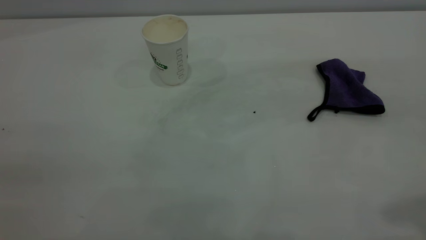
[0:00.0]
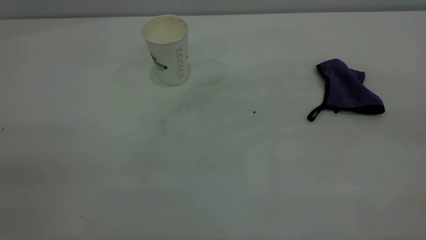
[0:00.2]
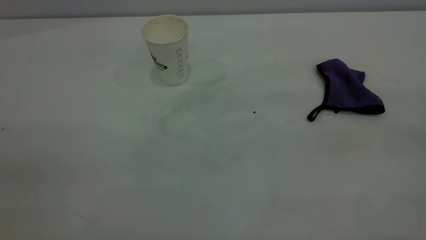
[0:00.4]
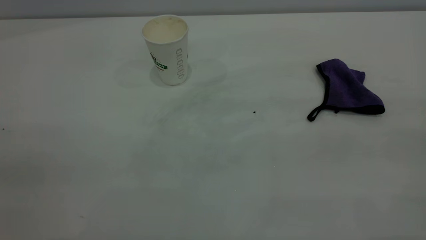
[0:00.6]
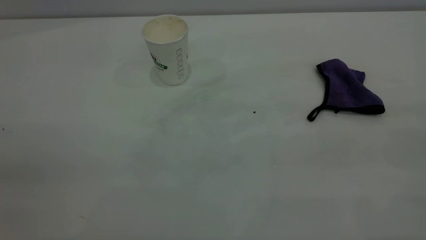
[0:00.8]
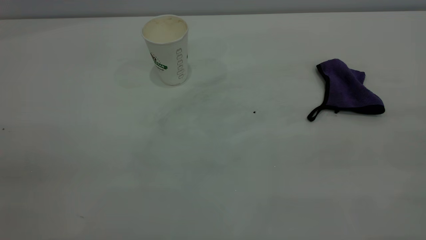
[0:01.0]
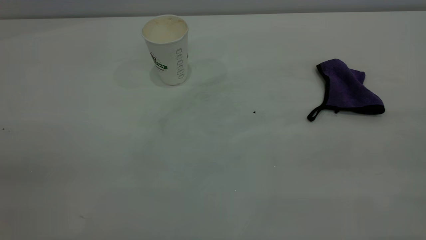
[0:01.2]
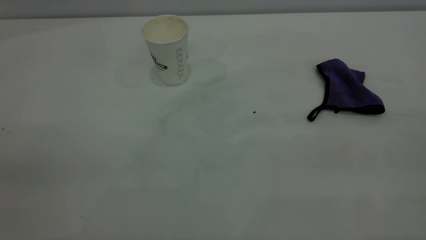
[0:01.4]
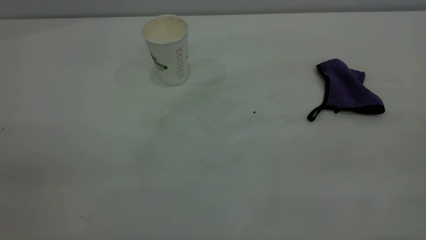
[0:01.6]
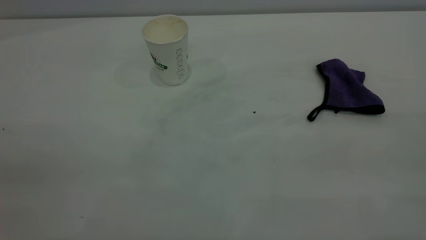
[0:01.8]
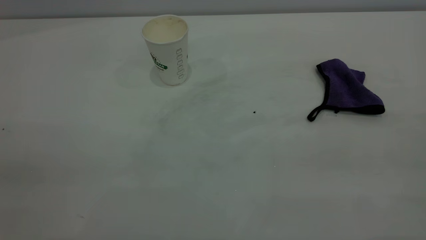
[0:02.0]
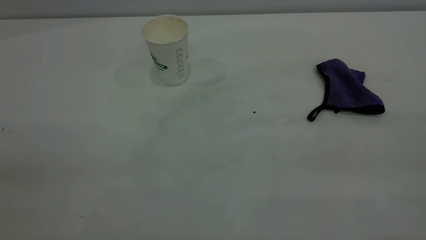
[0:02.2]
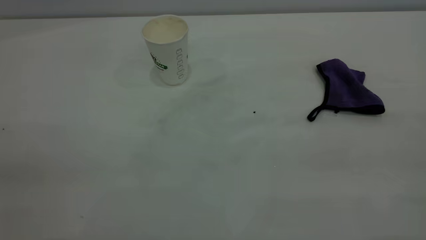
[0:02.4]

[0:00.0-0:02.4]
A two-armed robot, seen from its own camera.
Task of the whole recording: the left gripper pick up the fallen cup and place it upright, the right gripper grasp the purple rag and wipe the coffee stain on the table, the right gripper put the purple rag back in its original position.
0:01.2 to 0:02.4: The two grippers keep their place.
